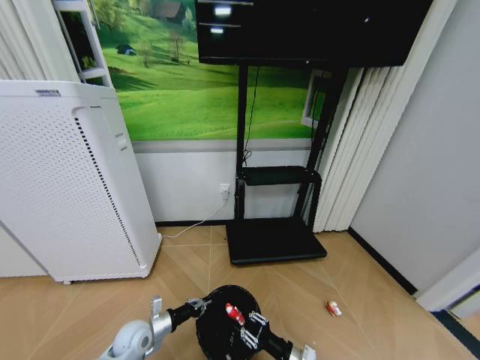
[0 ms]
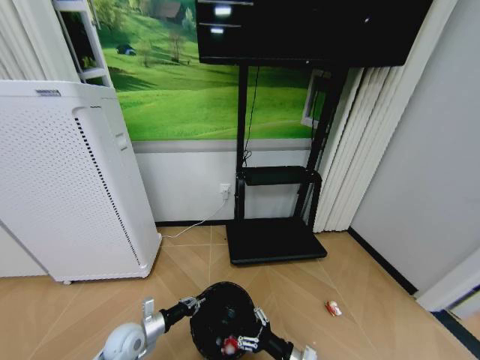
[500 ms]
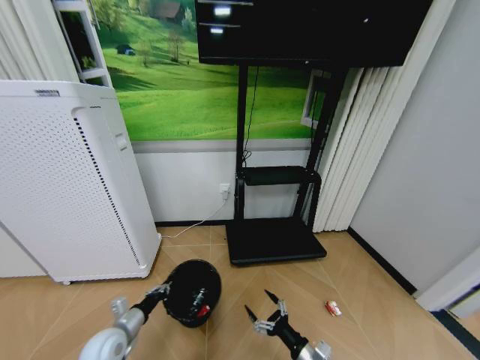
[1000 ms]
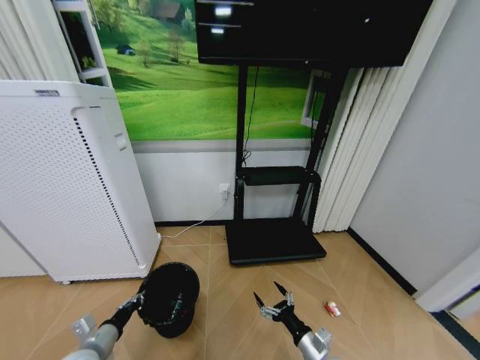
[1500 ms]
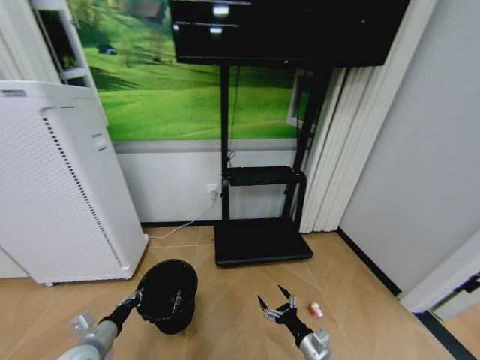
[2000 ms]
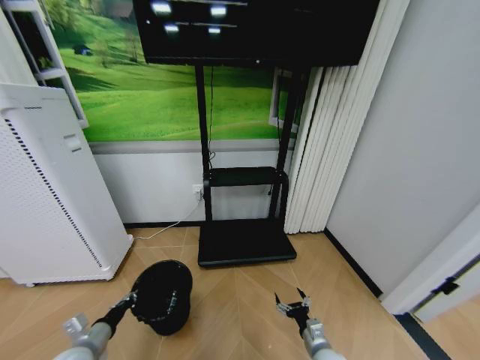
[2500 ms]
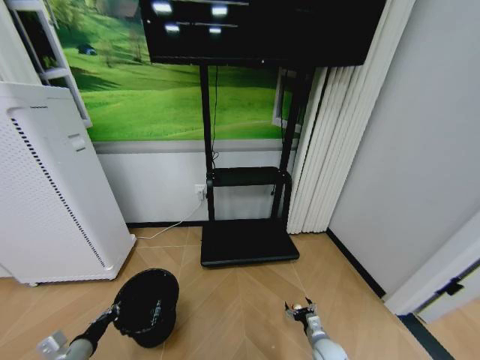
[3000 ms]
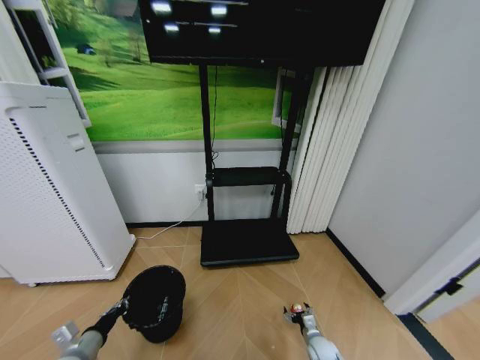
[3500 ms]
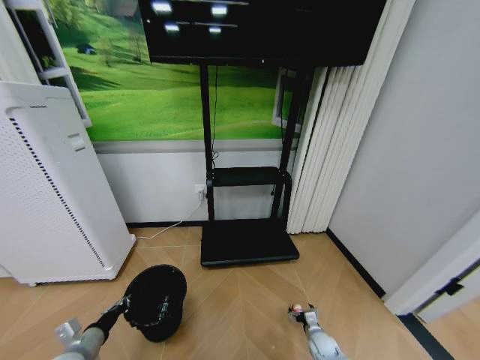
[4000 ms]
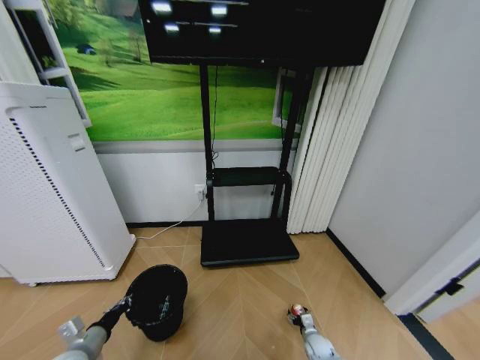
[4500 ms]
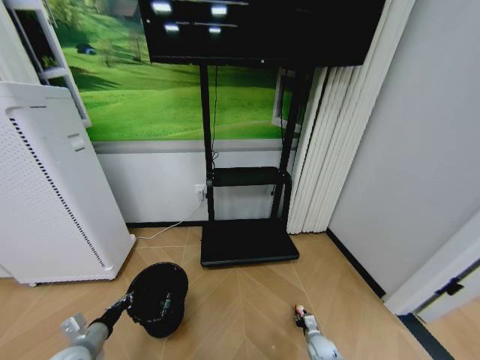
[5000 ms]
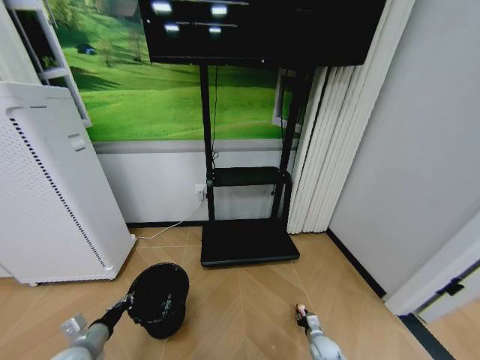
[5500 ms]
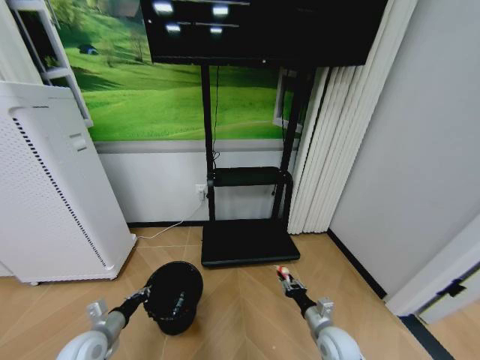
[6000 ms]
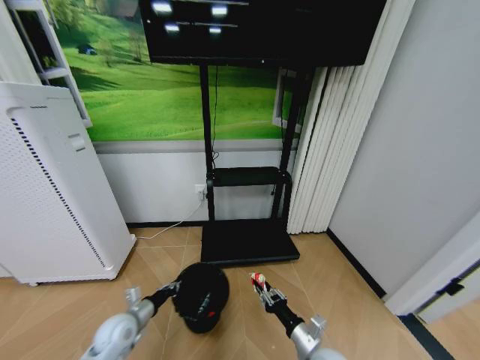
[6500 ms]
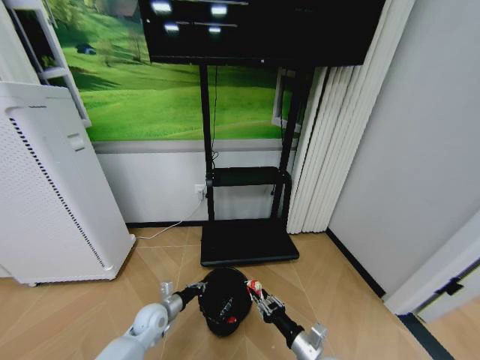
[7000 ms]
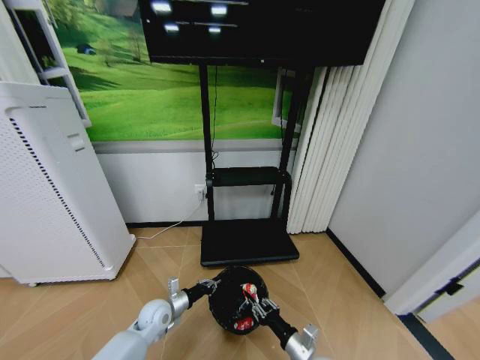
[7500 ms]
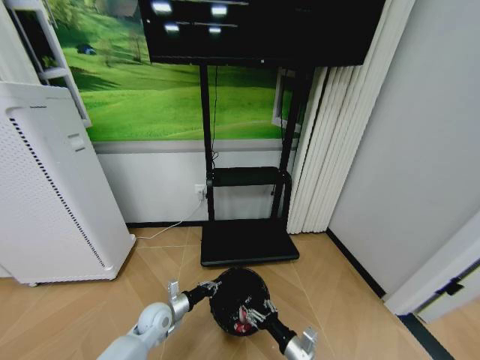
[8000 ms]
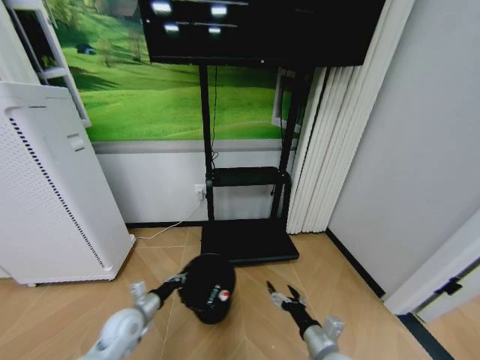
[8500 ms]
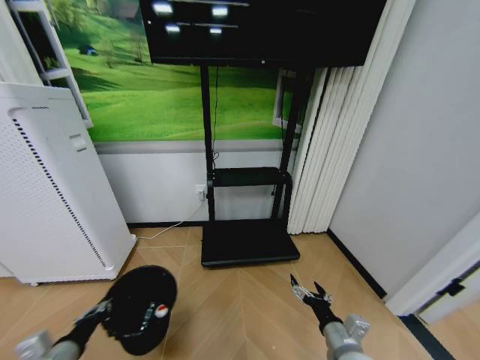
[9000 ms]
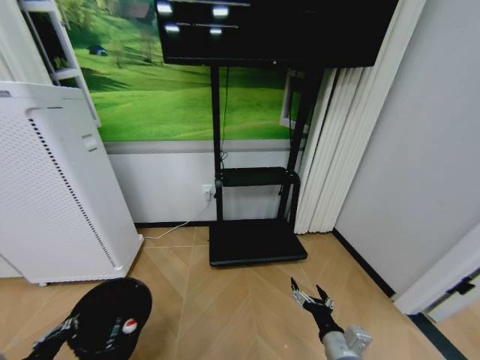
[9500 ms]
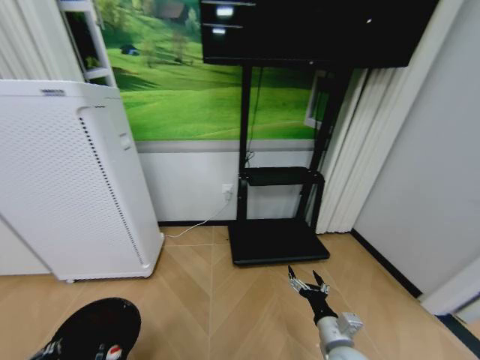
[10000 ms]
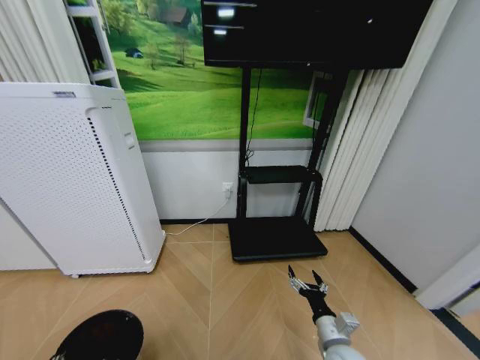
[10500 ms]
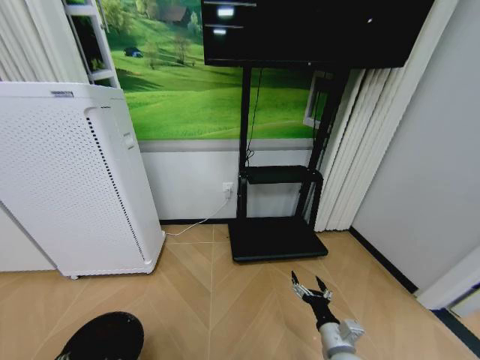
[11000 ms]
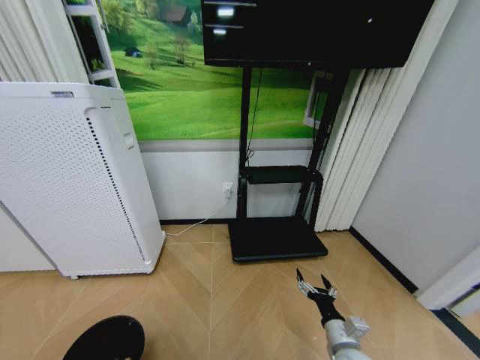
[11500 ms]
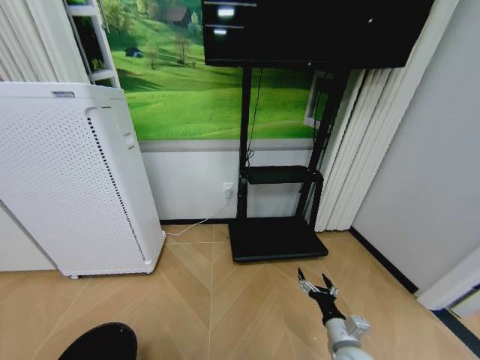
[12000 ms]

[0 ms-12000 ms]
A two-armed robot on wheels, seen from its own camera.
Task of the whole recording: Pick up the trash bin and place the garbage on the floor into it.
0 ms to 2000 ms: The right gripper opens. The left gripper heads to the left, upward and backward, covering about 15 cm.
2000 ms to 4000 ms: The right gripper heads downward, forward and to the right, covering approximately 20 cm.
4000 ms to 6000 ms: The right gripper travels upward by some 15 cm, and closes its fingers.
6000 ms to 8000 ms: The right gripper travels to the left and backward by roughly 10 cm, and opens its fingers, while the left gripper moves to the right, forward and downward, roughly 15 cm.
8000 ms to 10000 ms: The left gripper moves backward, to the left and upward, approximately 35 cm, while the right gripper shifts some 5 cm upward, and opens its fingers.
10000 ms to 12000 ms: The left gripper heads downward, covering about 10 cm.

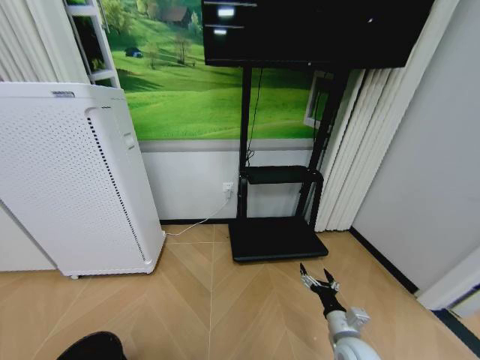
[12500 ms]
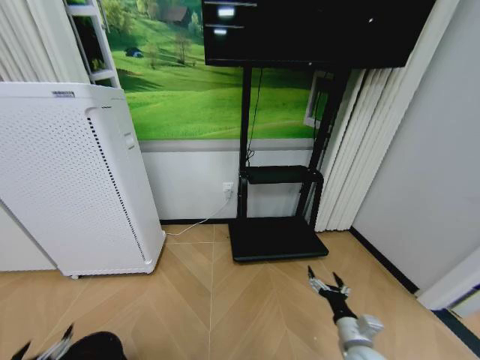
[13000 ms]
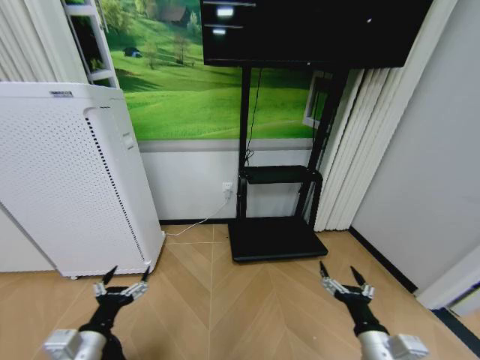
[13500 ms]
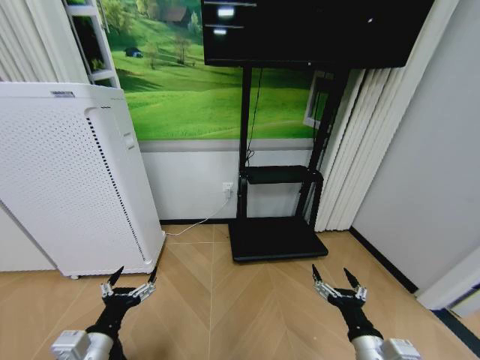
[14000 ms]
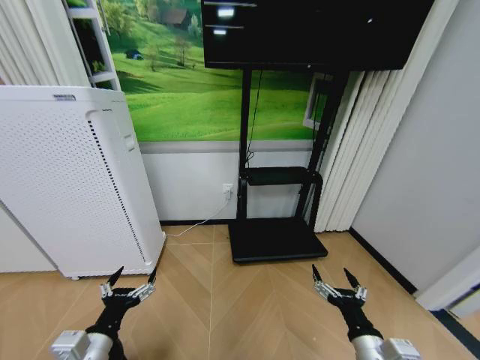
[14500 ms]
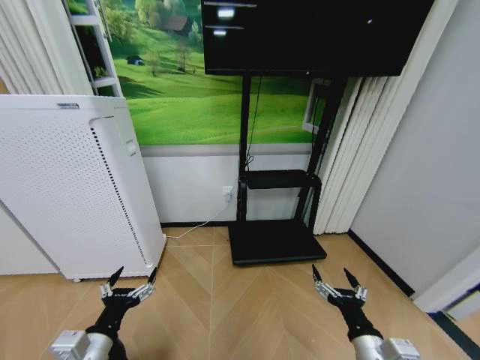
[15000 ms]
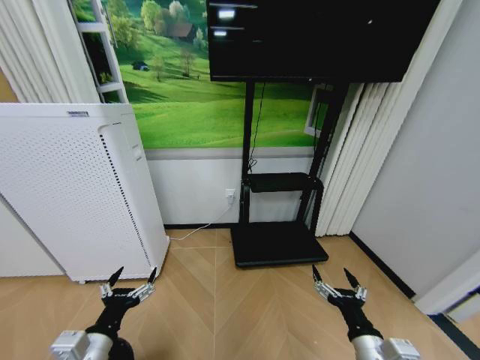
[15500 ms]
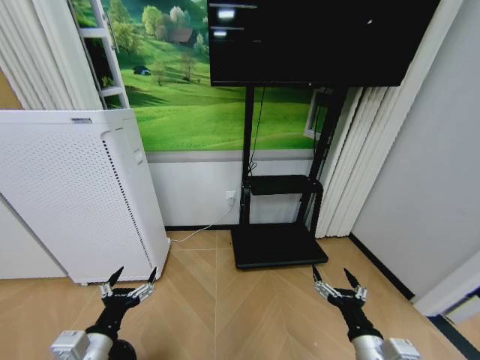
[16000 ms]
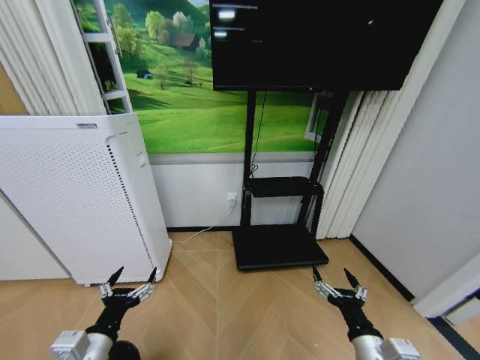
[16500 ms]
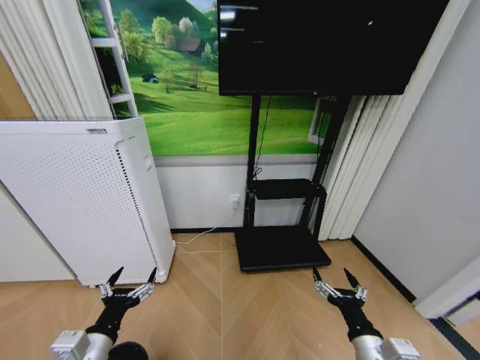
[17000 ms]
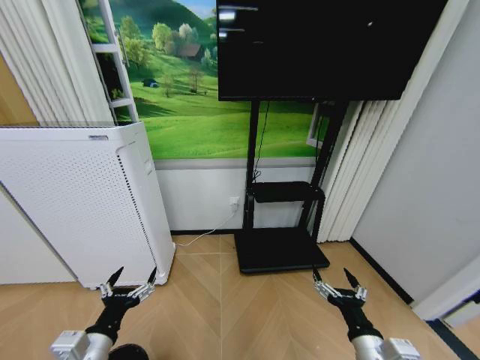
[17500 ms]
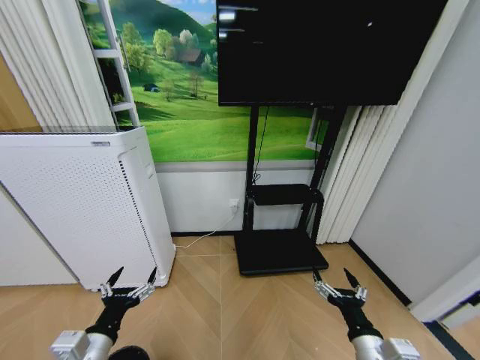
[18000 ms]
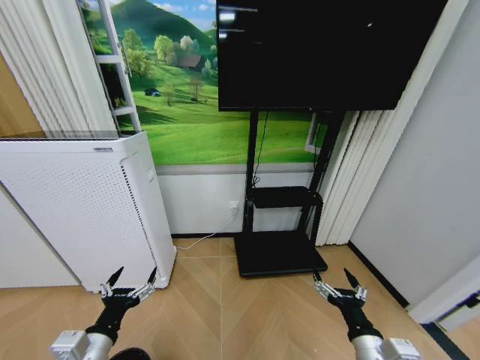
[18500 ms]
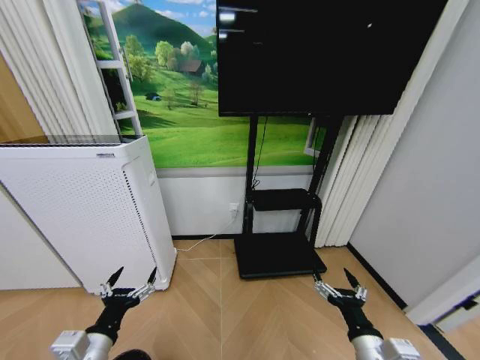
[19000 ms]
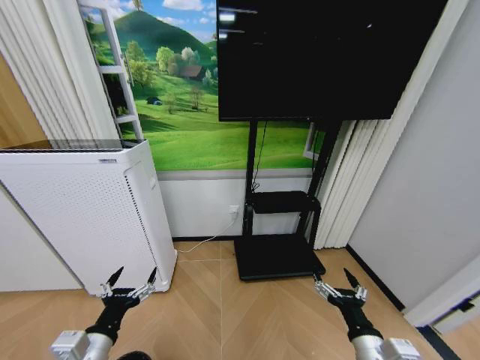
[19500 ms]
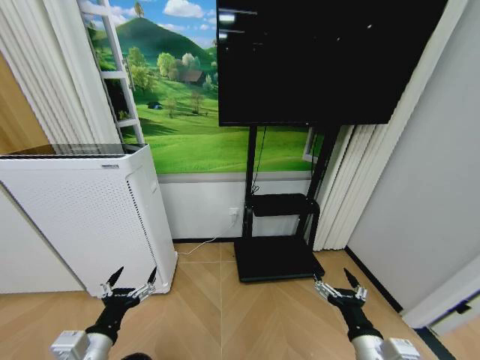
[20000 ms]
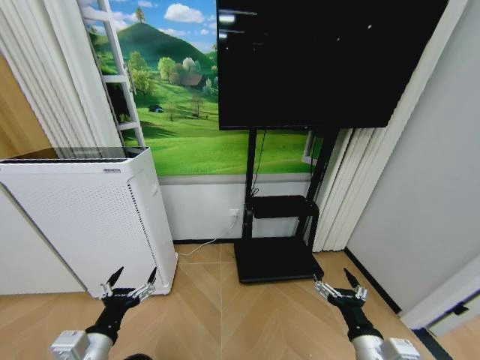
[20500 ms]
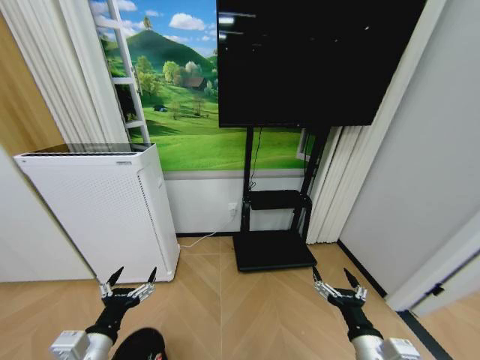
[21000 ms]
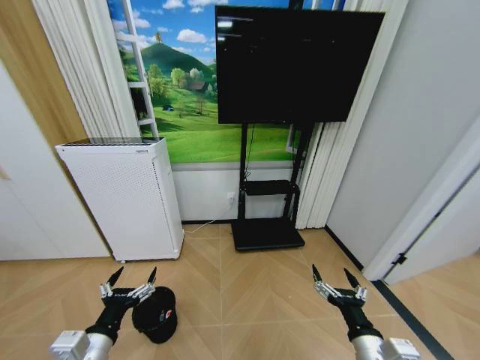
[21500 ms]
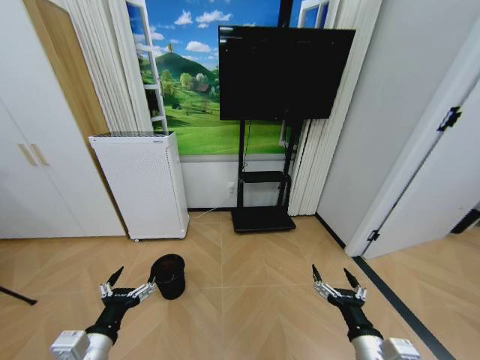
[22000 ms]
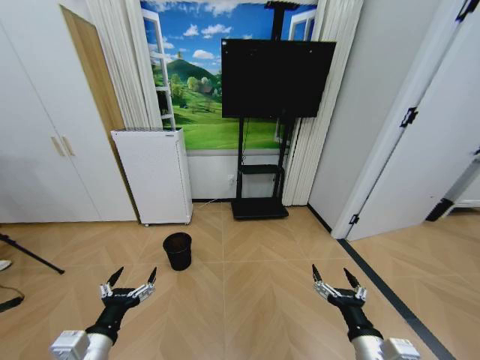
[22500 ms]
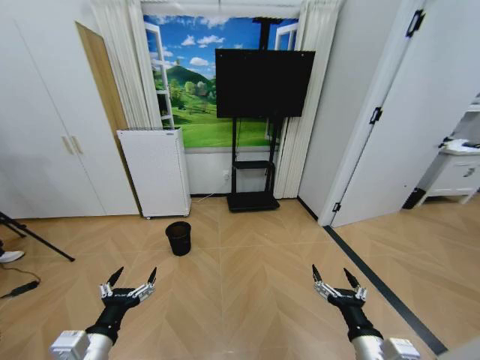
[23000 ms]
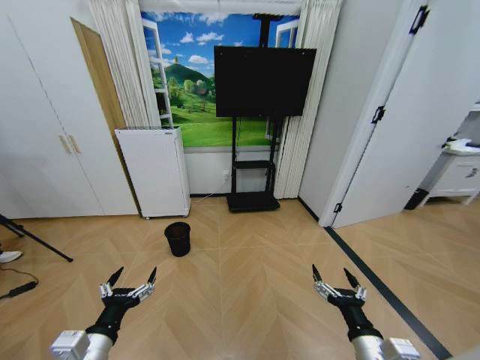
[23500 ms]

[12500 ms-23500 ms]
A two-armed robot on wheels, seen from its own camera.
Task of the whole recording: Pick up the trash bin and place the garbage on the floor into it.
12500 ms to 14500 ms: The right gripper moves upward and backward, approximately 15 cm. The left gripper heads to the right, forward and upward, covering some 25 cm, and opens.
18000 ms to 20000 ms: Neither gripper changes place.
